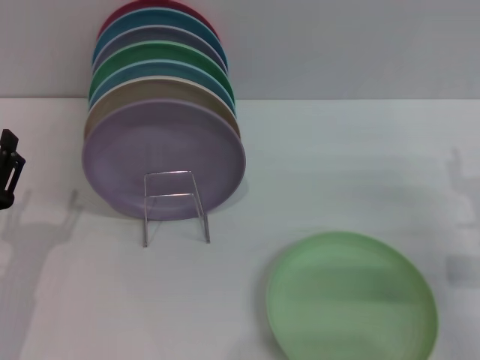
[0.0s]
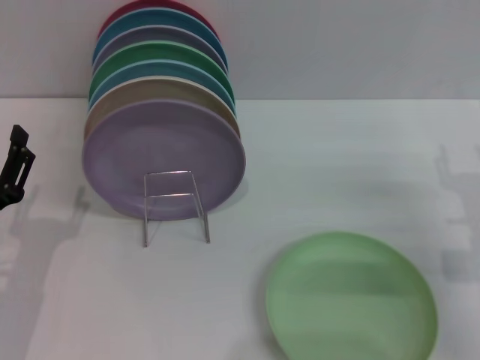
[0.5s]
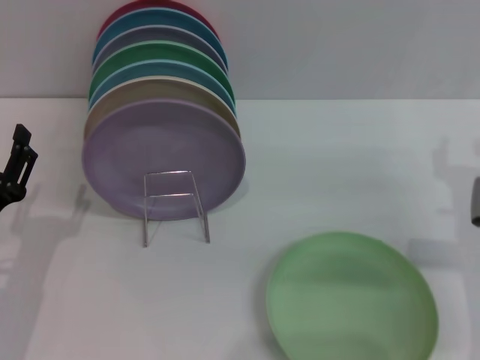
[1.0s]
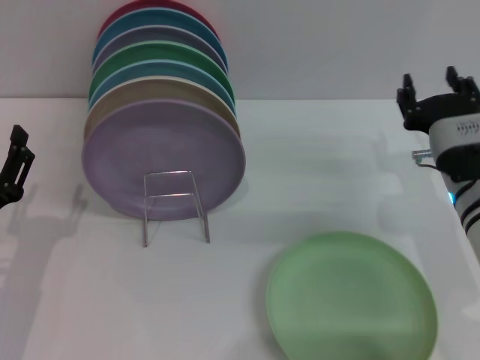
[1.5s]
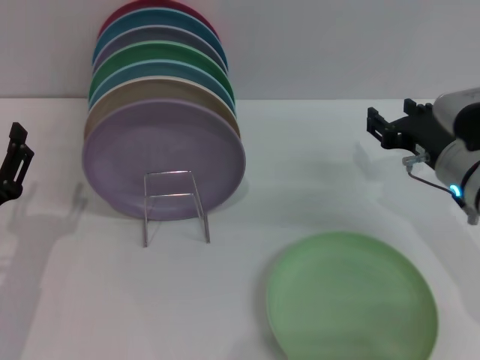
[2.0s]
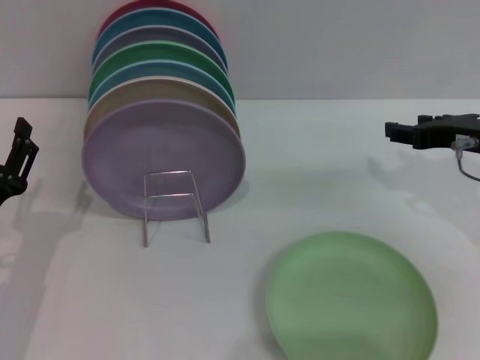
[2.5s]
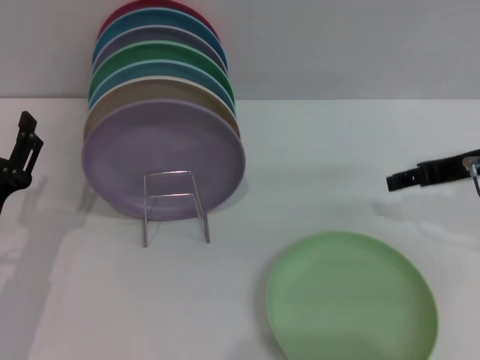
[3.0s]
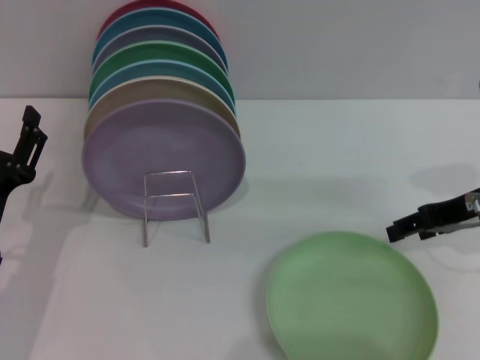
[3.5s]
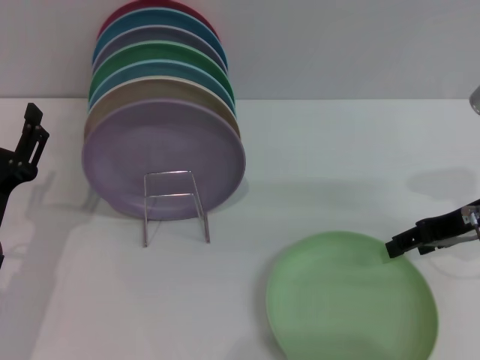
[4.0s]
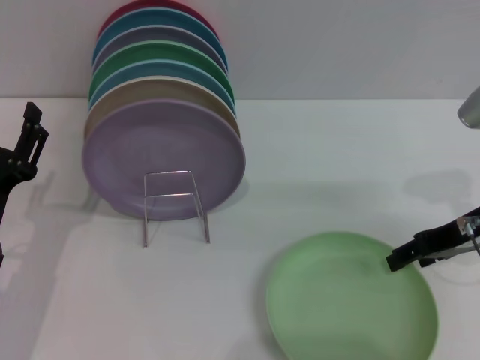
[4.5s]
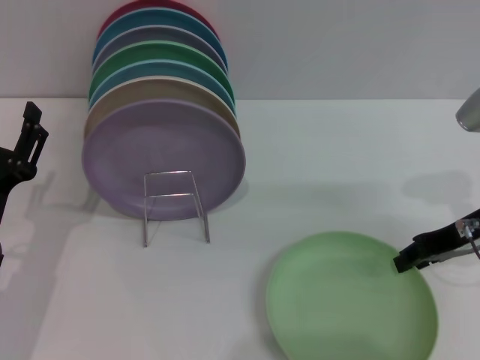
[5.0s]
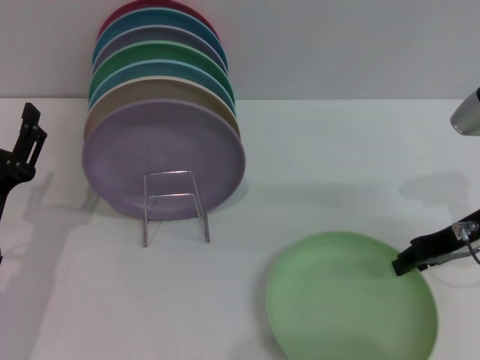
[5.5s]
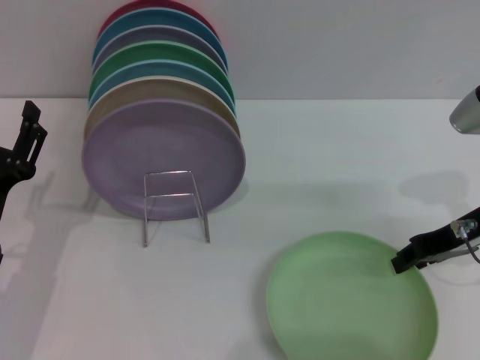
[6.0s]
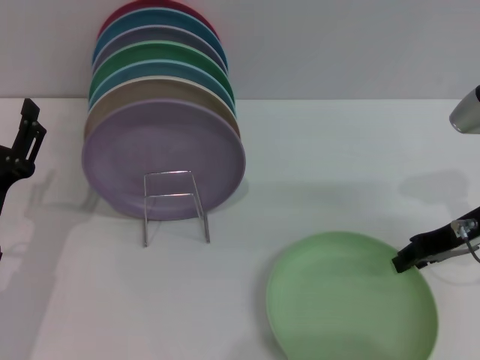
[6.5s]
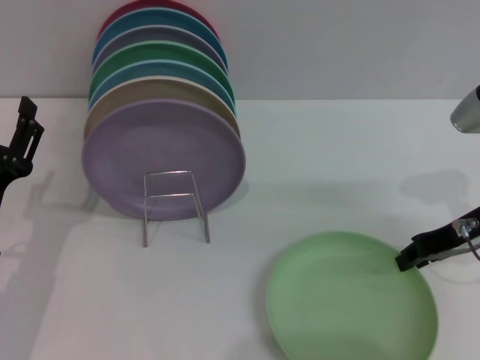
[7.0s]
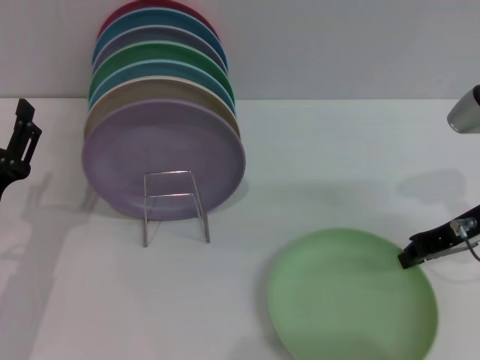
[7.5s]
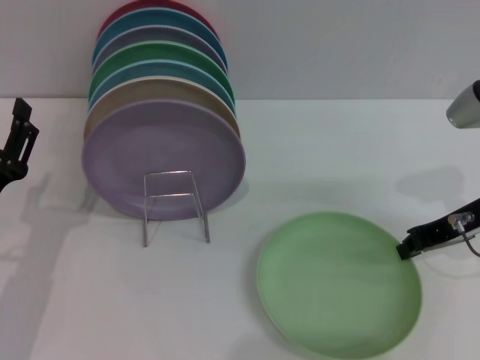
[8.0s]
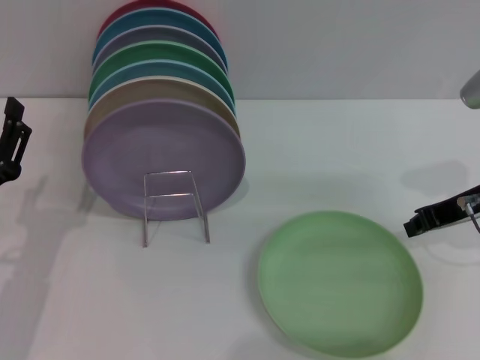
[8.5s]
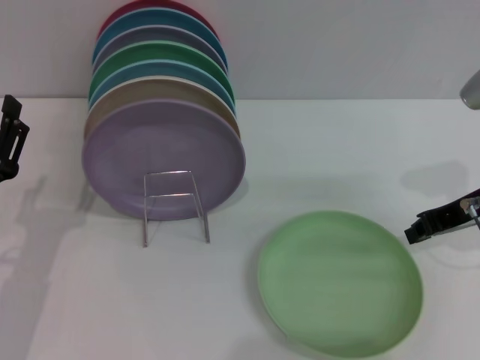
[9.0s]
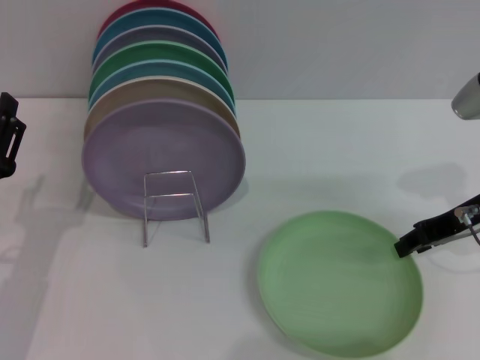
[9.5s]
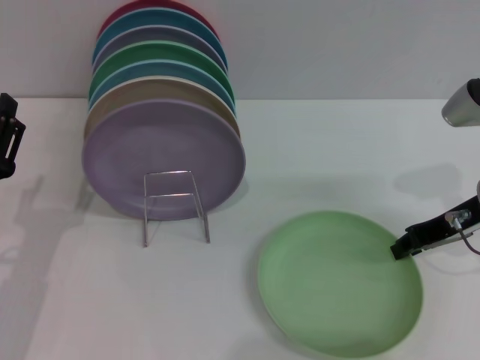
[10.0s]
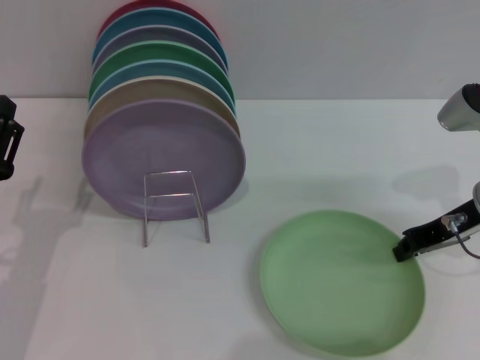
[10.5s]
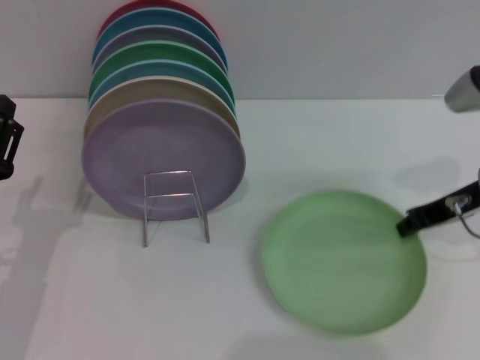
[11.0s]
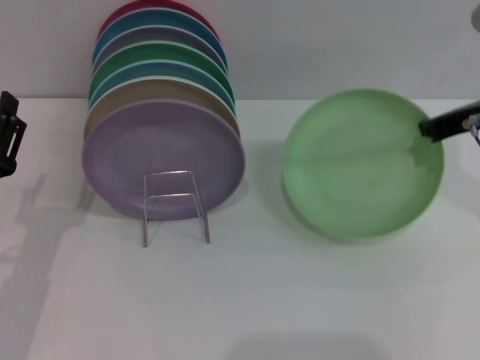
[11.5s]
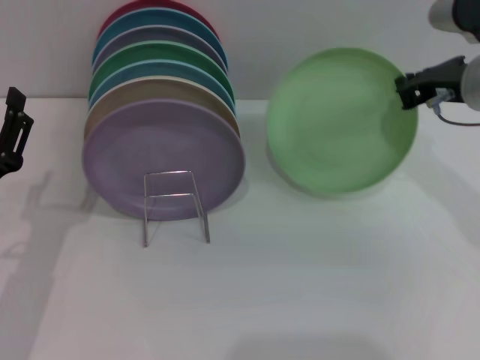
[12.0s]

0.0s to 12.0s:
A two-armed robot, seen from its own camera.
Task of the whole recording: Grip the plate with one hand, pass it to the other, then set it on the shelf.
Step, 0.0s to 12.0s: Pick up the plate with the right gripper.
0.0s to 2.0s: The right gripper heads forward and to the left, covering some 10 cm.
2.0s to 4.0s: The right gripper travels upward by roughly 5 cm.
4.0s to 6.0s: The right gripper closes its fingers.
6.0s to 8.0s: The right gripper closes up.
8.0s to 10.0s: The right gripper opens.
10.0s to 12.0s: The right gripper goes about 5 cm upward, and closes.

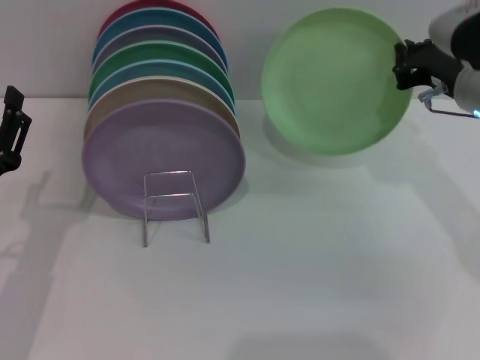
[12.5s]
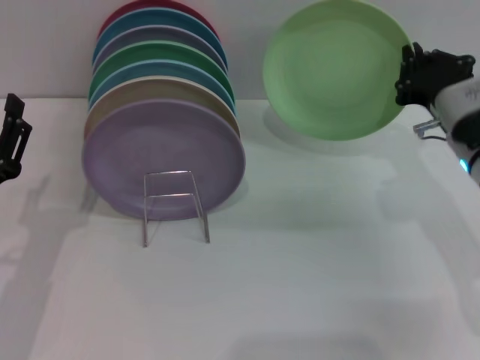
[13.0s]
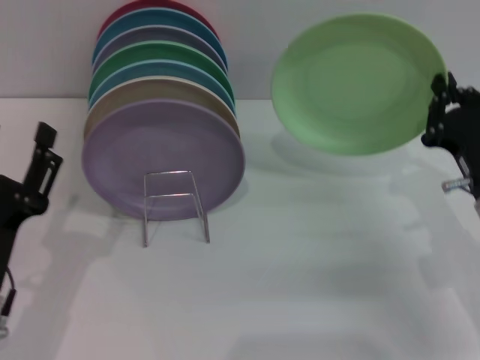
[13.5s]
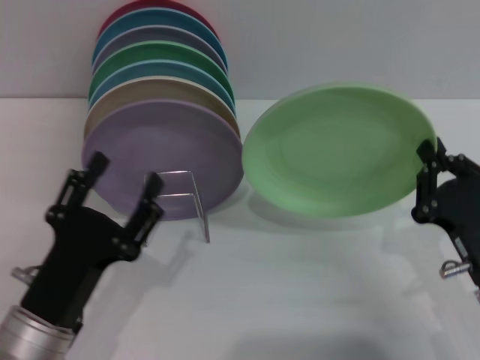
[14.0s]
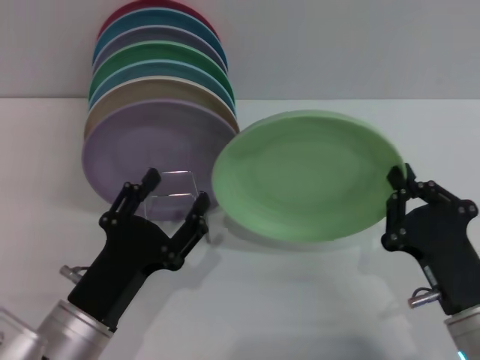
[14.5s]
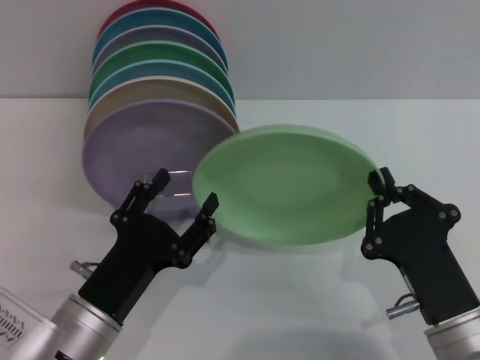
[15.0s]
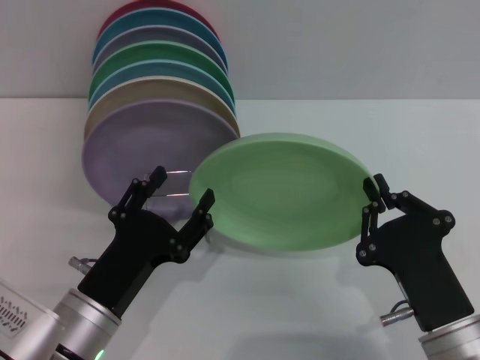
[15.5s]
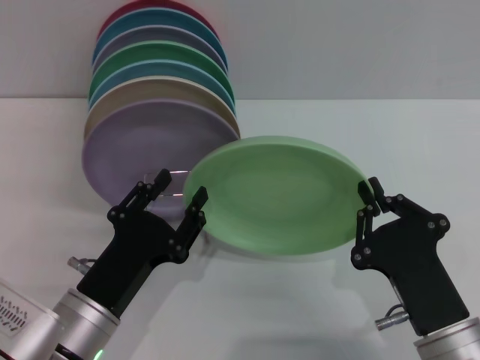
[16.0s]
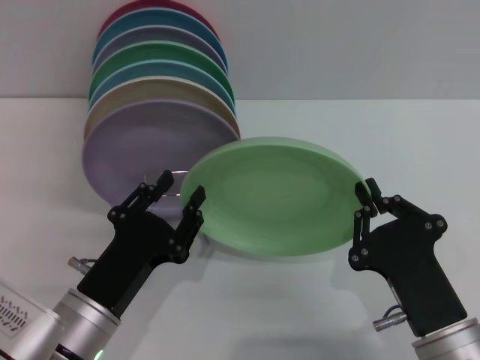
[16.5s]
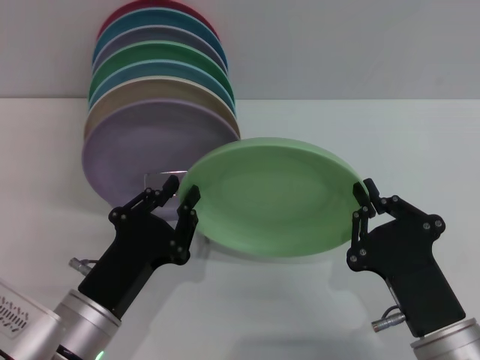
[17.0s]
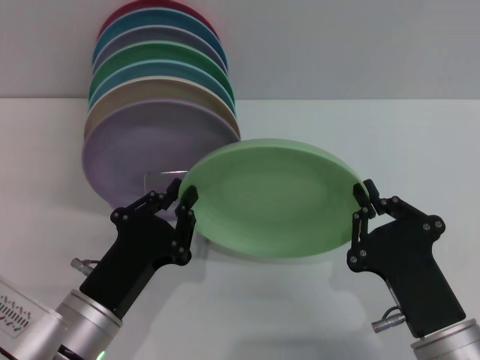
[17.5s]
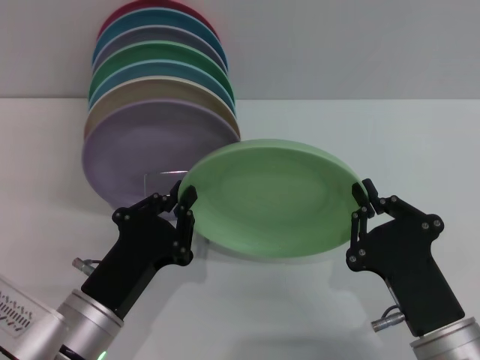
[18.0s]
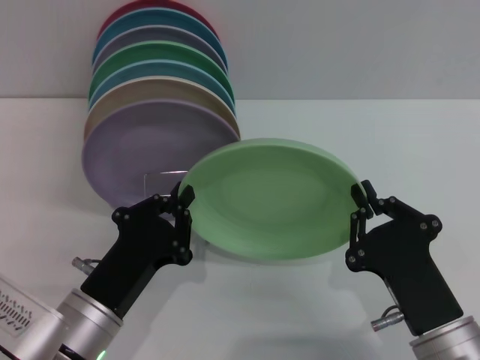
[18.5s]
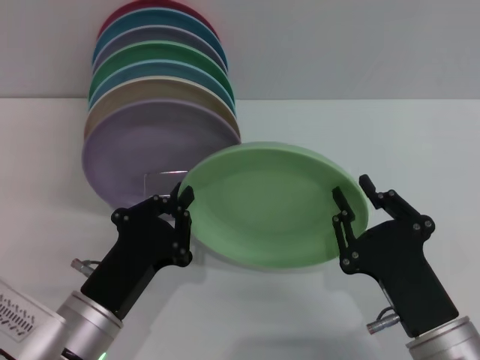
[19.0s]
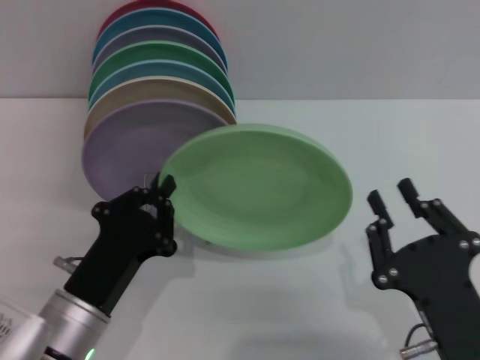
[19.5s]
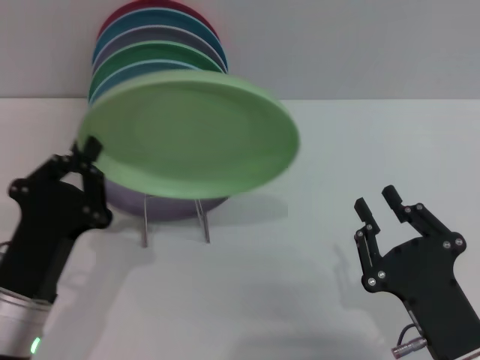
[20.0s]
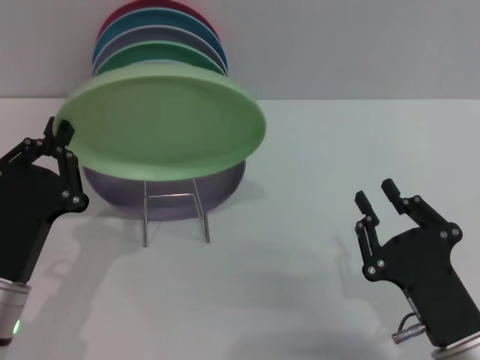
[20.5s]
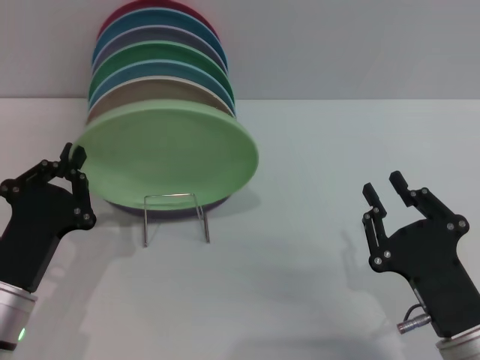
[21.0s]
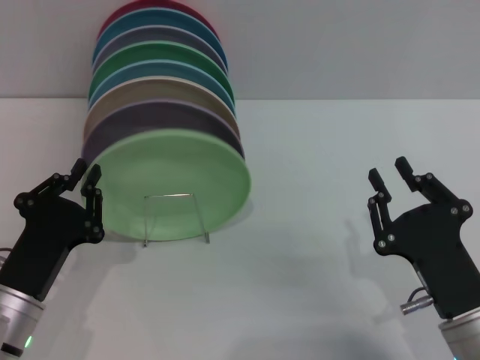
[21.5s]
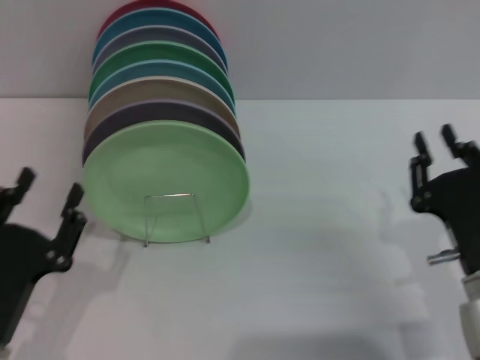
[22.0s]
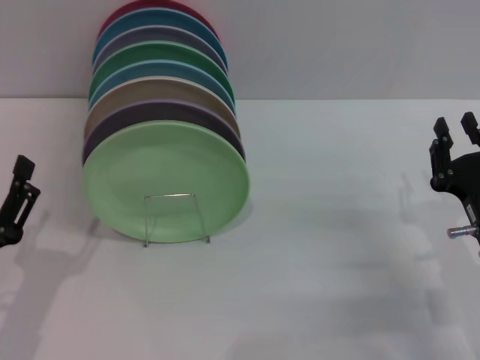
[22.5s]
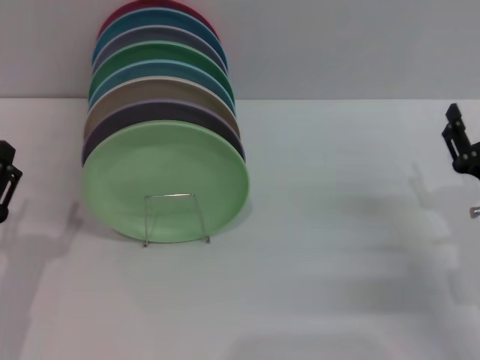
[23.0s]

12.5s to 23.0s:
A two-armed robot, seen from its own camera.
Task of the whole recording: Grip the plate with one hand, pass it to the other, then set it on the shelf.
Step, 12.5s to 19.0s: Pass the plate from the right gripper to the left gripper.
Step, 19.5s to 22.0s: Place the plate on the shelf with the left gripper.
12.5s to 14.5s: The left gripper travels to the right by about 10 cm. The right gripper travels backward and downward by approximately 25 cm.
14.5s to 16.5s: The grippers stay close to where they were, moving slightly.
16.5s to 19.0s: The left gripper closes up.
19.0s to 21.0s: The left gripper travels to the left by about 5 cm.
21.0s to 23.0s: The left gripper opens its fingers. Meanwhile the right gripper heads forward and to the right, covering some 15 cm, and opens.
